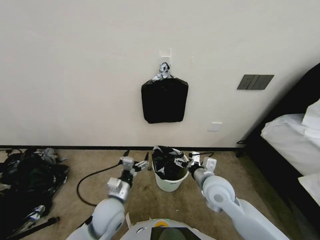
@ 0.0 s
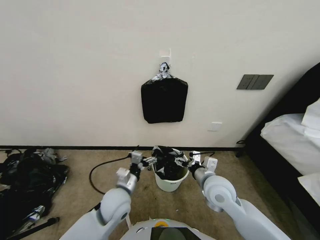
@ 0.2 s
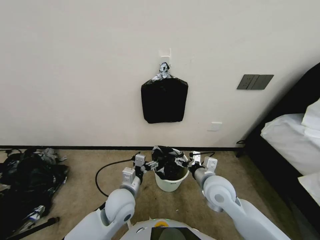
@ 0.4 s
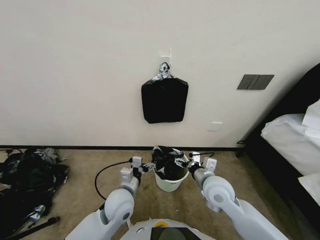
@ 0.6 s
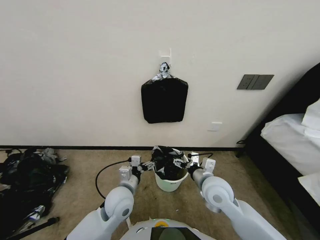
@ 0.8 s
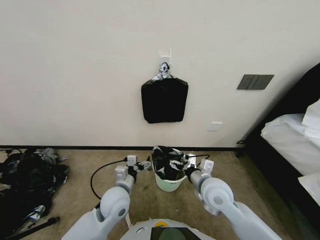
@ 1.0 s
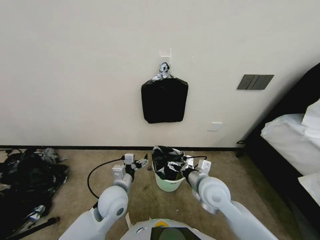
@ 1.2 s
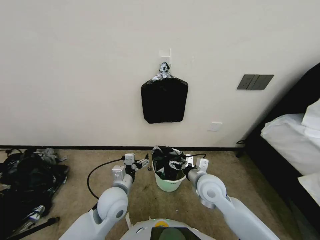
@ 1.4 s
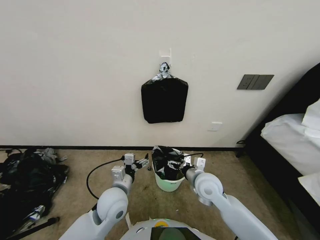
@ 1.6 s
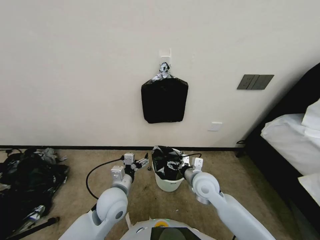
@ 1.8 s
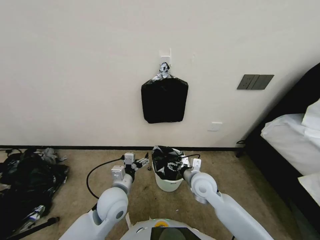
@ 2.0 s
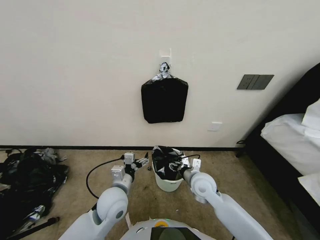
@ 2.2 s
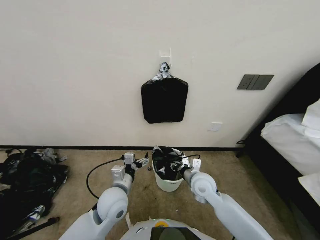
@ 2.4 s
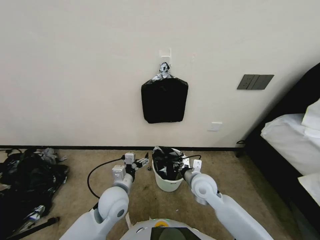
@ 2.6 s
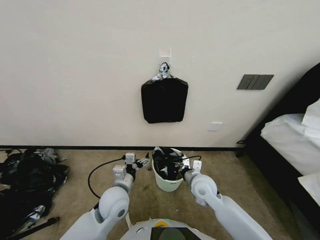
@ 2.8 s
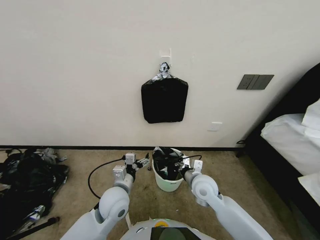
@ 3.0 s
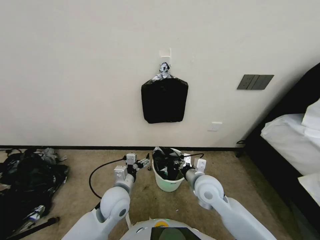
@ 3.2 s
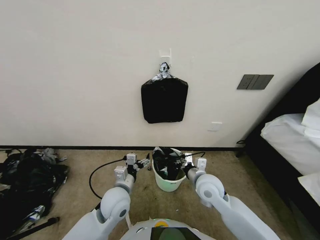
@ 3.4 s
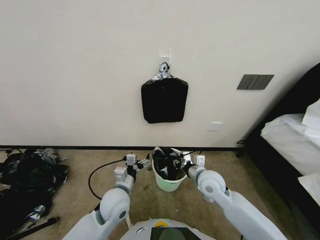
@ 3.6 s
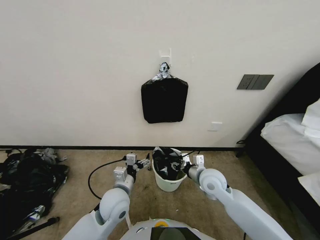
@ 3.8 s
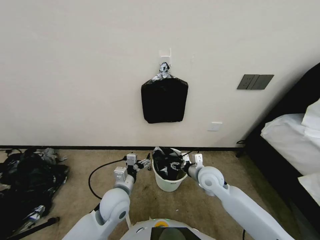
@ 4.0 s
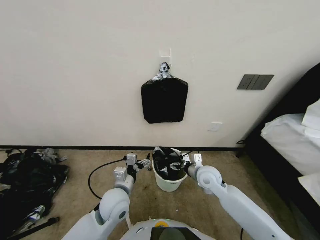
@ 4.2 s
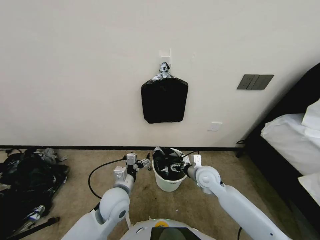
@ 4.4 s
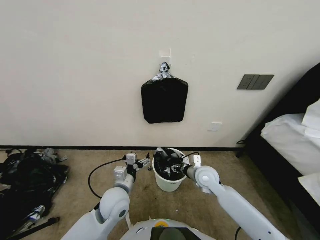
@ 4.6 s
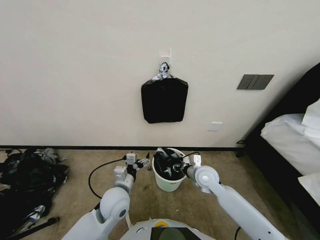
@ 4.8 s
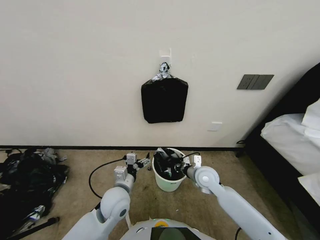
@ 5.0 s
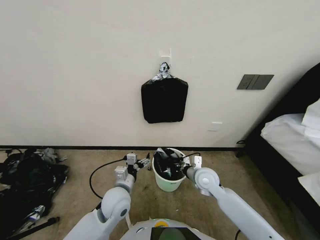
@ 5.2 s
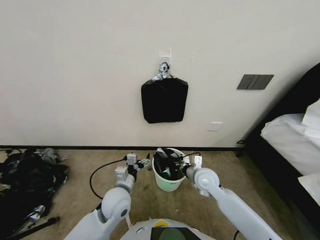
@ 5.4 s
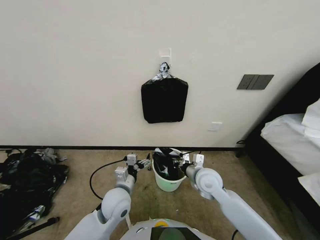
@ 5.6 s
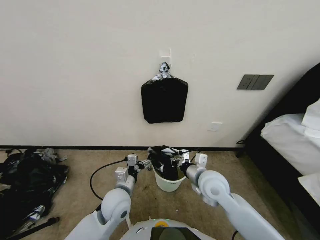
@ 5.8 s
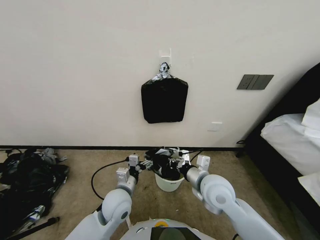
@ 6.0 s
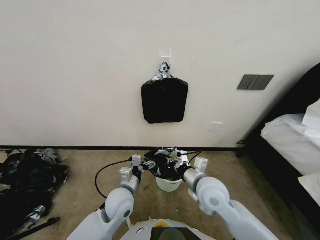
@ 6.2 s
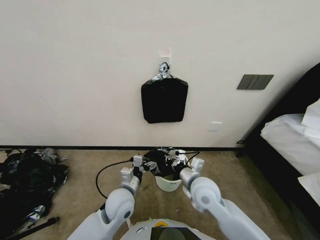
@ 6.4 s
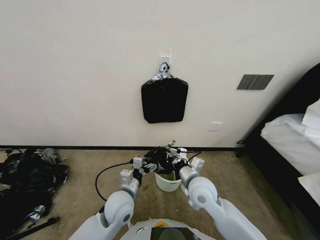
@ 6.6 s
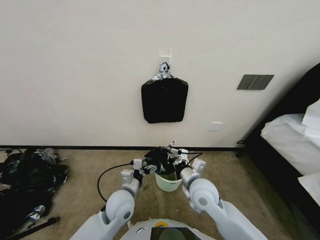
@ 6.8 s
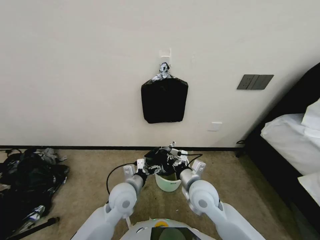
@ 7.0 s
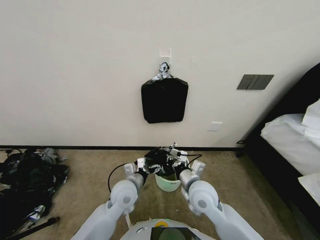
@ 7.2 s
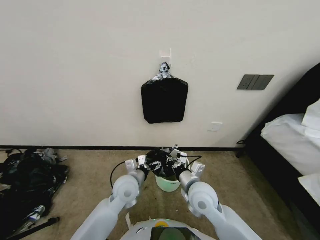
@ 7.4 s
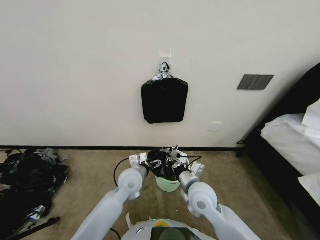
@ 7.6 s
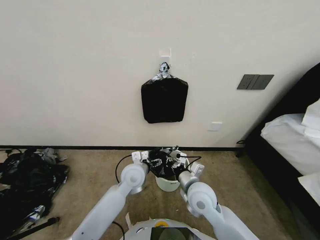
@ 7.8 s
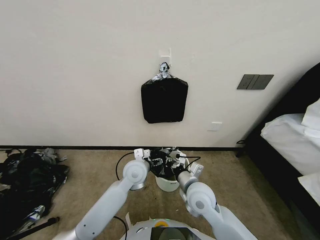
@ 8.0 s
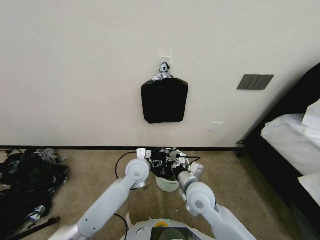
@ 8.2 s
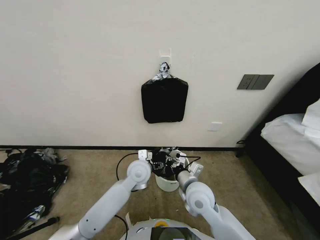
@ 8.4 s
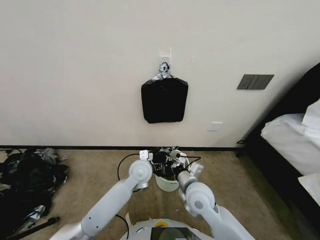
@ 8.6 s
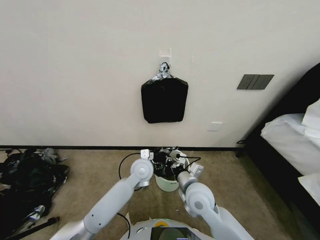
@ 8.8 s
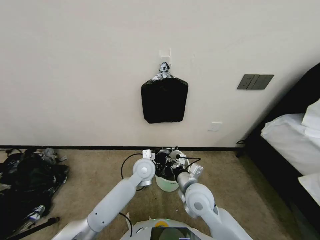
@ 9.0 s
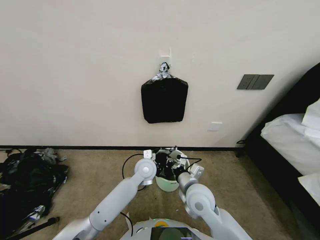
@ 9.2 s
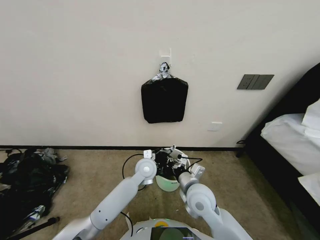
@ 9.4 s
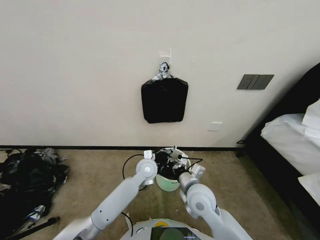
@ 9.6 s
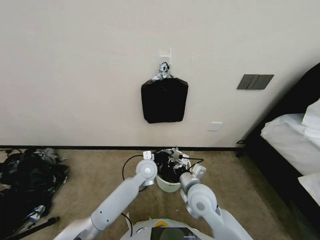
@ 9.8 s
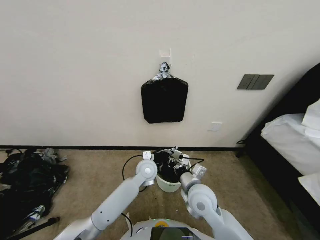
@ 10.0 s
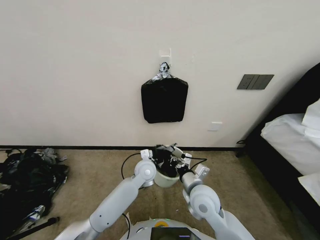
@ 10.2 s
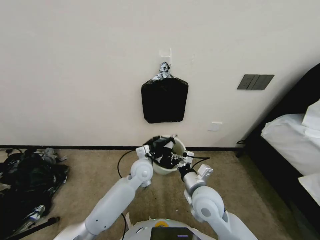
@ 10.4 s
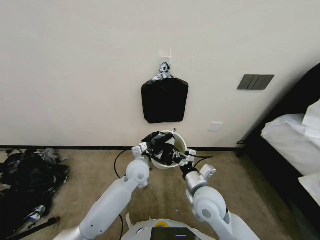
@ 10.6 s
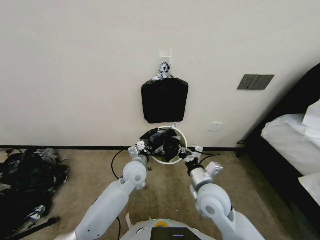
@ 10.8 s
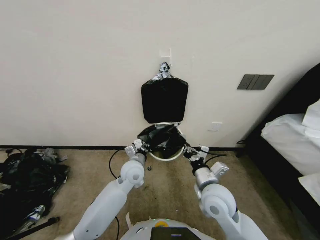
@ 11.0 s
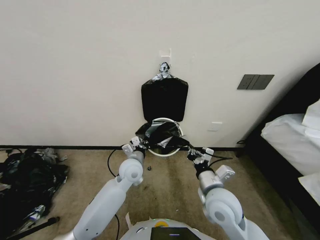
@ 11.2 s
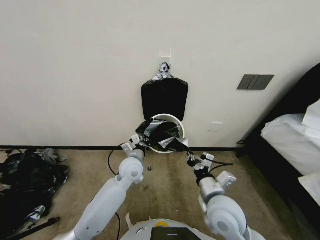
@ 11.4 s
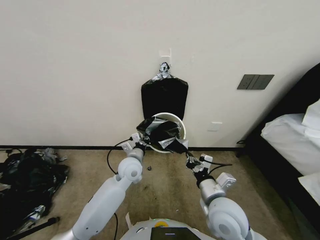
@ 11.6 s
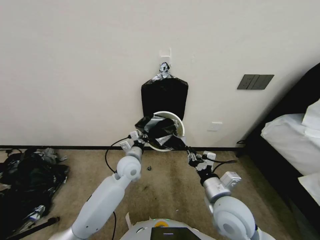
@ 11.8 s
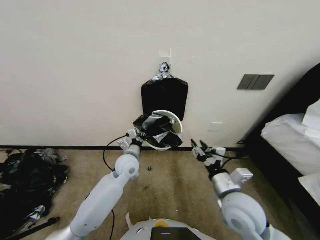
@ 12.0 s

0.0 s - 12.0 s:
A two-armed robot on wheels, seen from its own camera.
Task of the whole recording: Place a trash bag onto the trash bin.
0.0 s - 1.6 s: The left gripper moves about 5 cm.
1.6 s - 3.0 s: The right gripper closes up.
3.0 s - 4.4 s: The right gripper opens up.
4.4 s - 6.0 s: The right gripper goes approximately 10 cm upward and backward, and closes up.
6.0 s - 7.6 s: The right gripper shifts by some 5 cm; the left gripper travels forward by approximately 5 cm.
7.6 s - 9.0 s: The left gripper is displaced forward and to the right by about 10 cm.
9.0 s - 10.4 s: The left gripper closes up.
10.4 s - 12.0 s: The left gripper goes about 5 cm to the left. Meanwhile the right gripper travels to the right by about 5 cm.

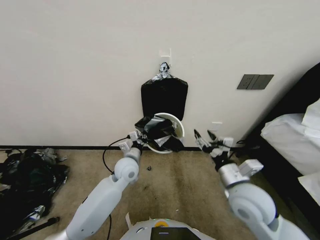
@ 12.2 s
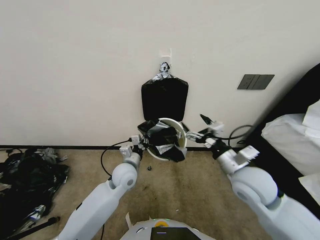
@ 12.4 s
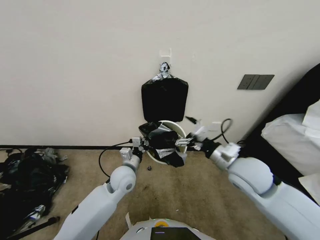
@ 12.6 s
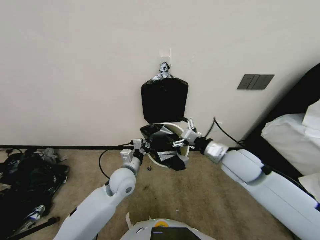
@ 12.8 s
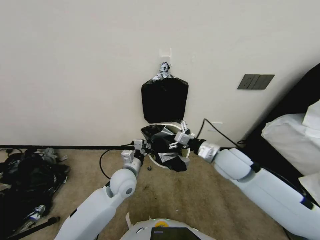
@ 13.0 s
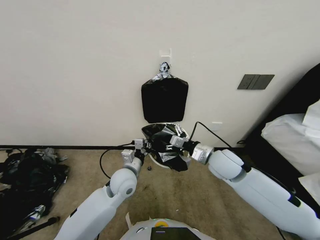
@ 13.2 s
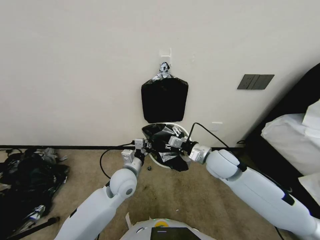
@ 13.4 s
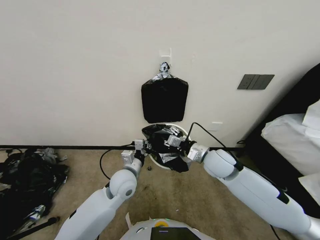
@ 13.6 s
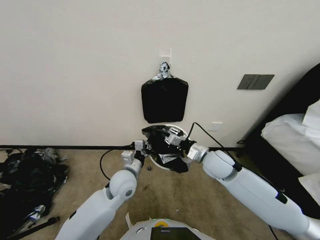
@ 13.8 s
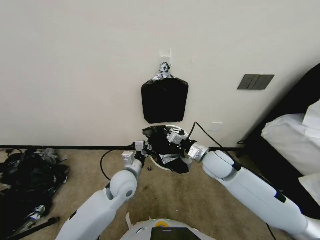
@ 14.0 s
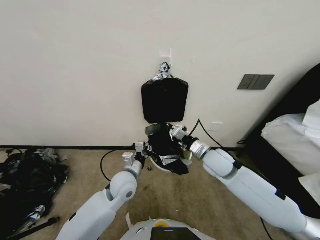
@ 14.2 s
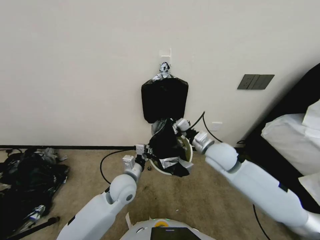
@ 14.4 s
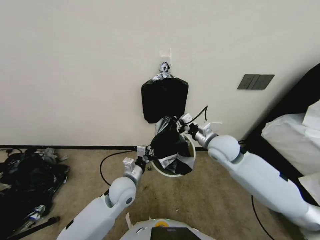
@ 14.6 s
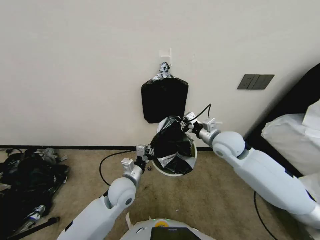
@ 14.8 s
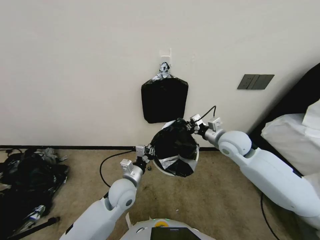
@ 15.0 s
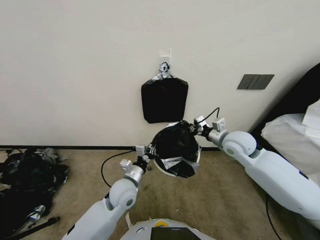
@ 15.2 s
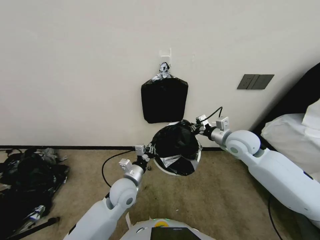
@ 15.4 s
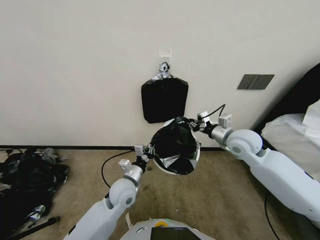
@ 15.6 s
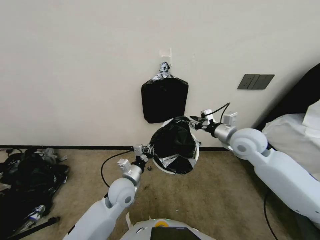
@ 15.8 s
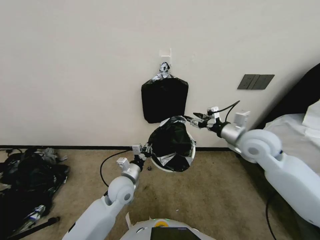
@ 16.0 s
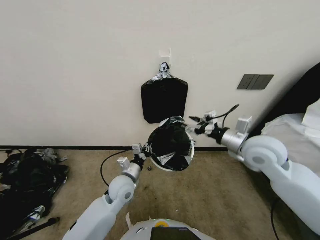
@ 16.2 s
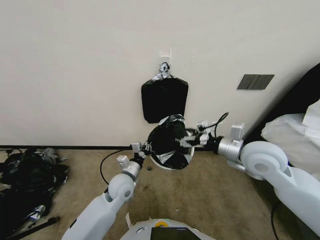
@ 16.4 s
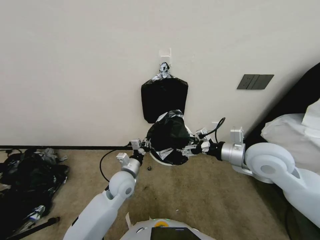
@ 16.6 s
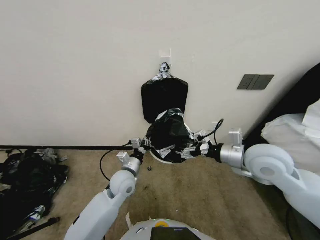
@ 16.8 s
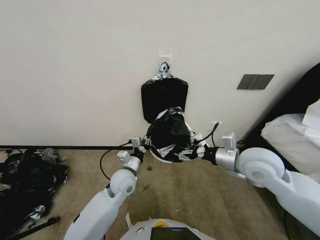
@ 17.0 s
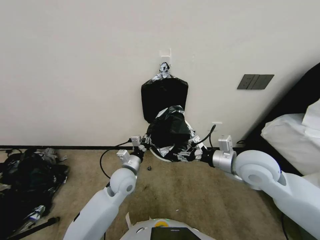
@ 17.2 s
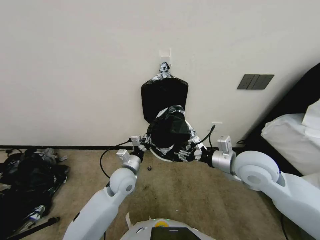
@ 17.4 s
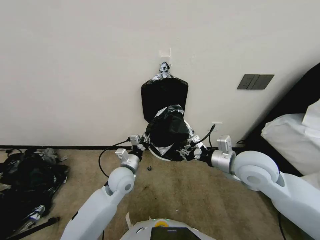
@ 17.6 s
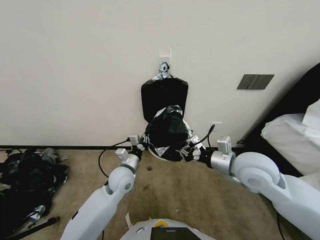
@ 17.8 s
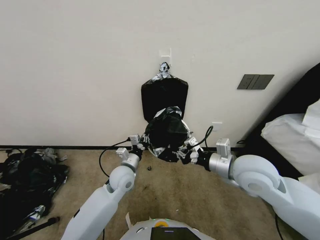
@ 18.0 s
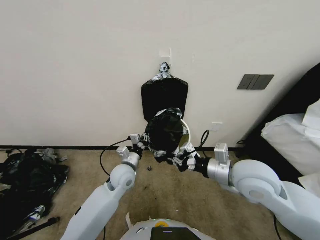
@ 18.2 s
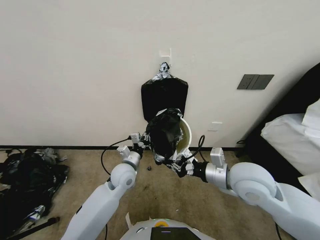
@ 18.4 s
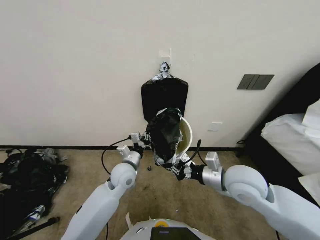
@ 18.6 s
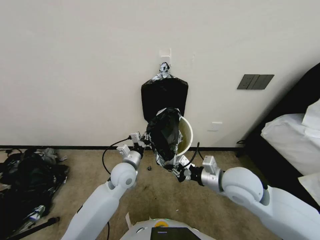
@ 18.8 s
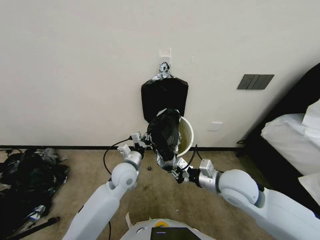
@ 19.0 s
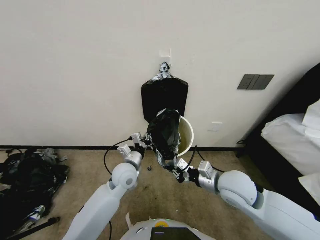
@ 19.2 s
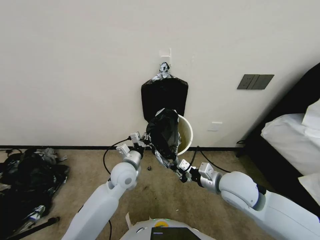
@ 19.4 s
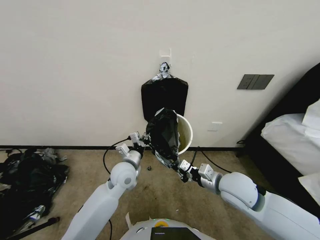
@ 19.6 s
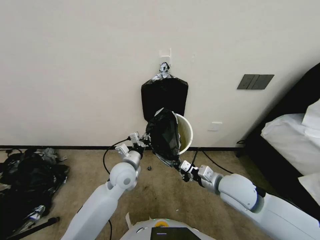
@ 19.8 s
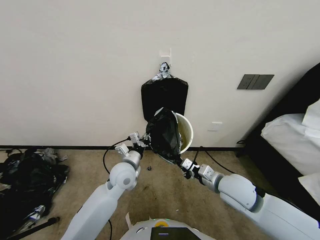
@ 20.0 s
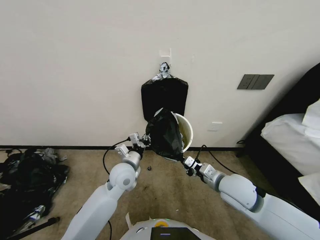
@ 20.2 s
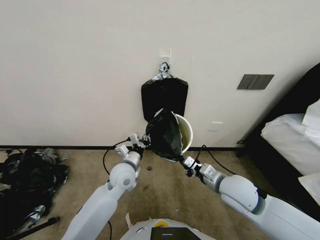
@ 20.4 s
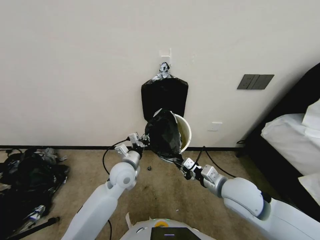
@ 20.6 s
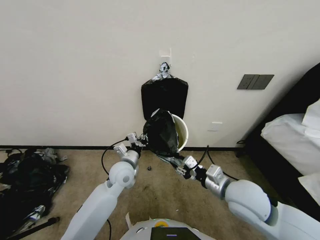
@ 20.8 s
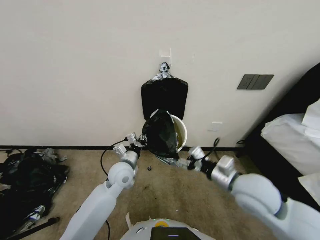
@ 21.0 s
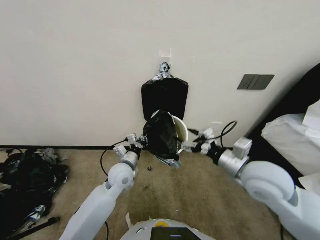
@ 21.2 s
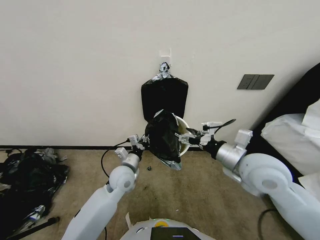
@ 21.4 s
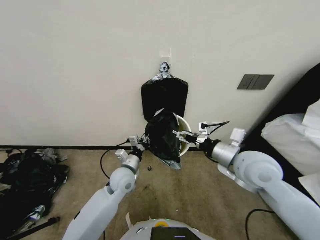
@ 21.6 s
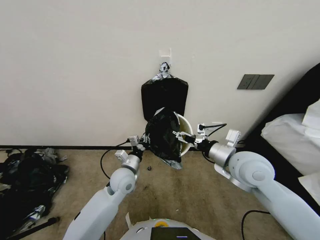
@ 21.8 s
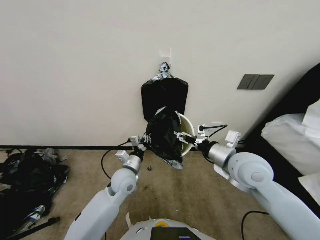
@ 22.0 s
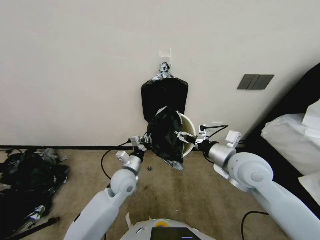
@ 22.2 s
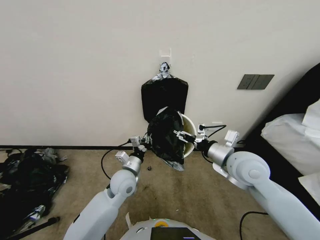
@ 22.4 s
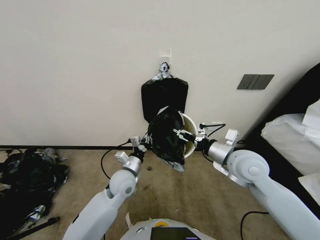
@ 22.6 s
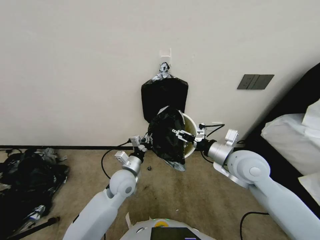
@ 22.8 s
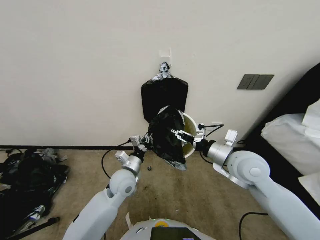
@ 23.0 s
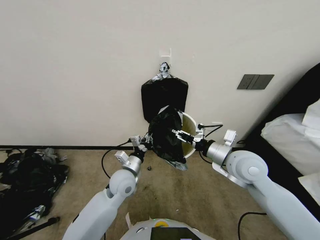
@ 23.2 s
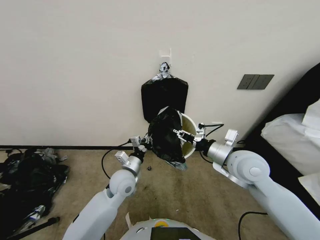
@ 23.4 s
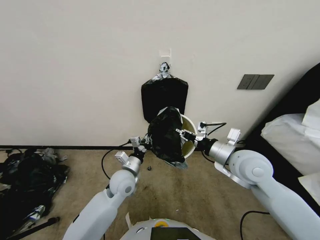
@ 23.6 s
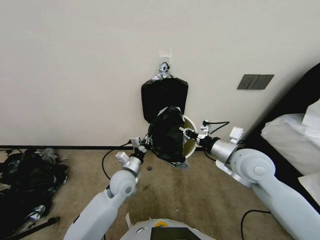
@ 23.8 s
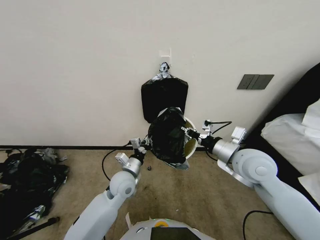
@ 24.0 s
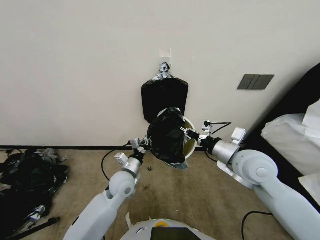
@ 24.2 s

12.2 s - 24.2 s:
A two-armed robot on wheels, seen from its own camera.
Task of the whole recording: Place a trash bag onto the trash bin.
12.2 s - 13.8 s: The right gripper is displaced forward by some 15 cm, and opens, then closes again. Meanwhile the left gripper goes some 5 cm backward.
13.8 s - 15.2 s: The right gripper heads to the right, forward and upward, covering approximately 10 cm, and closes up.
15.2 s - 16.6 s: The right gripper shifts roughly 10 cm backward, and opens up.
16.6 s - 18.2 s: The right gripper changes place by about 5 cm, and closes up.
18.2 s - 19.8 s: The right gripper heads downward, covering roughly 10 cm.
19.8 s - 21.2 s: The right gripper travels upward by approximately 5 cm, and opens its fingers.
21.2 s - 22.6 s: The right gripper heads forward, covering approximately 5 cm.
22.6 s - 24.2 s: The right gripper closes its fingers.